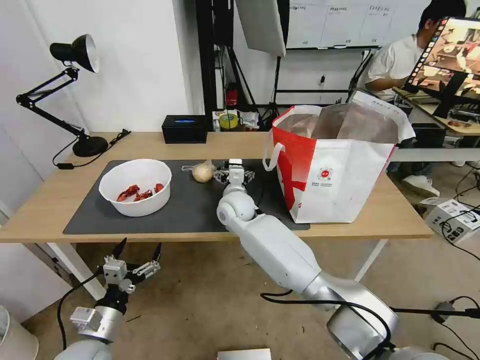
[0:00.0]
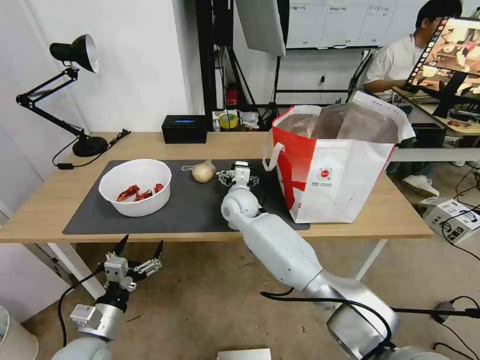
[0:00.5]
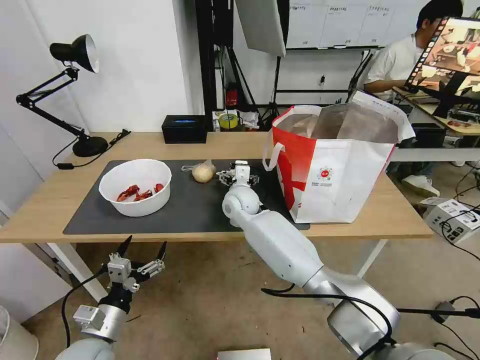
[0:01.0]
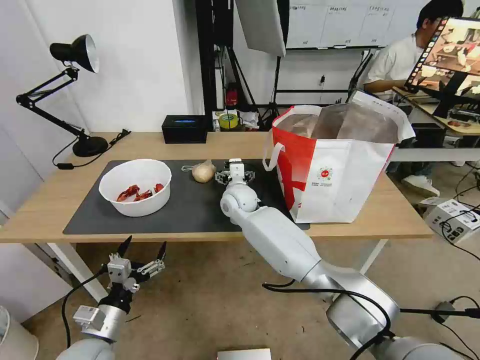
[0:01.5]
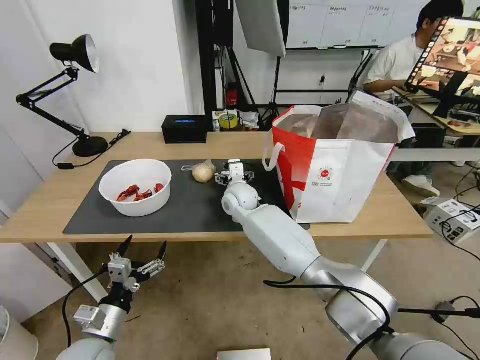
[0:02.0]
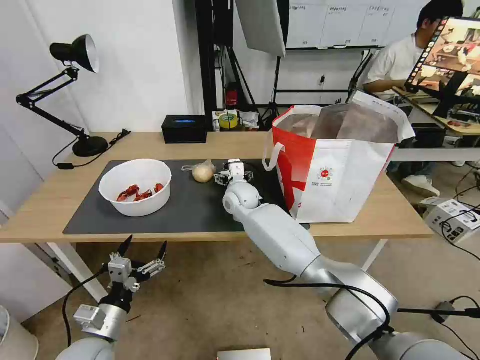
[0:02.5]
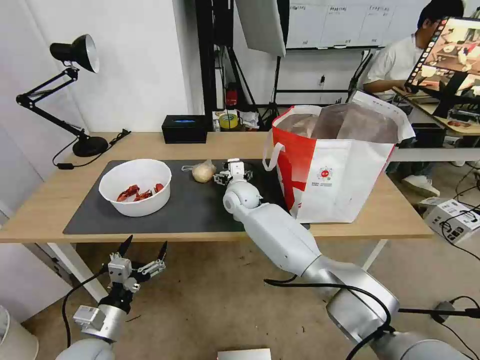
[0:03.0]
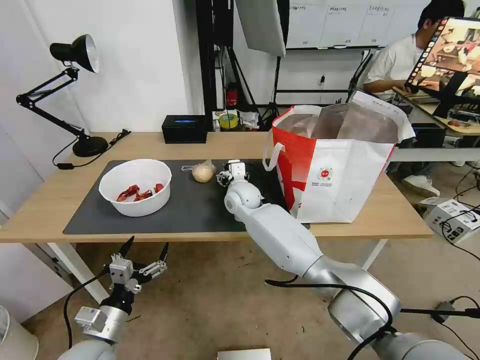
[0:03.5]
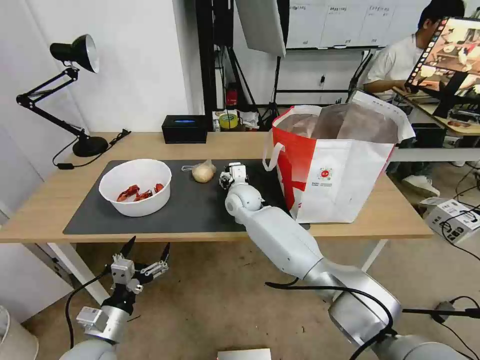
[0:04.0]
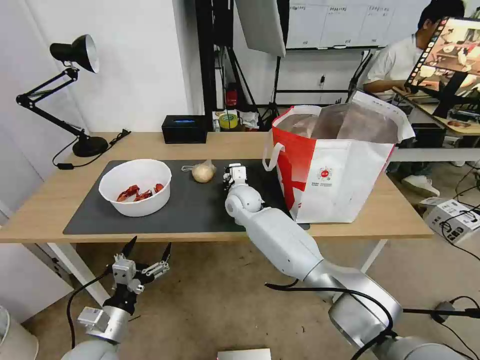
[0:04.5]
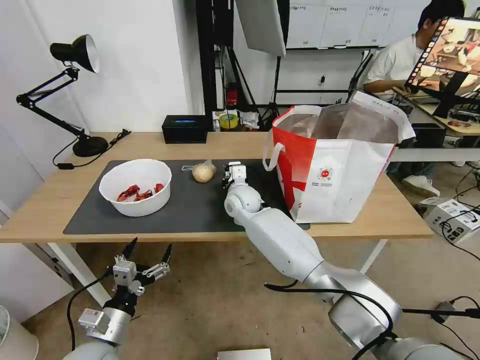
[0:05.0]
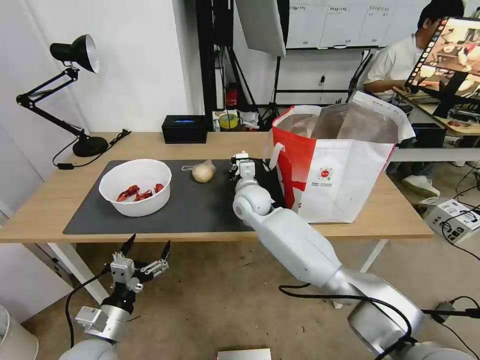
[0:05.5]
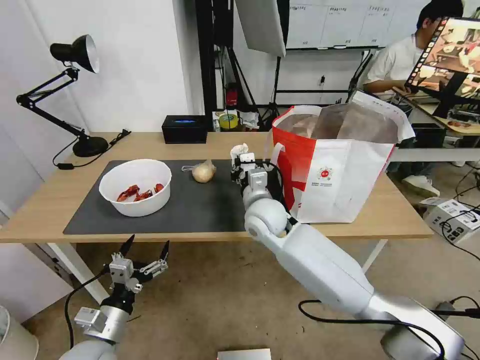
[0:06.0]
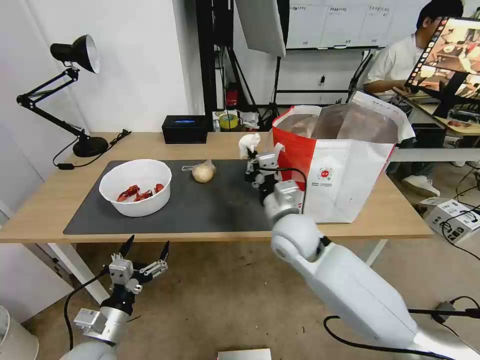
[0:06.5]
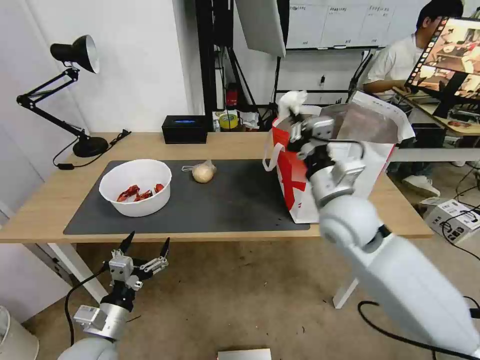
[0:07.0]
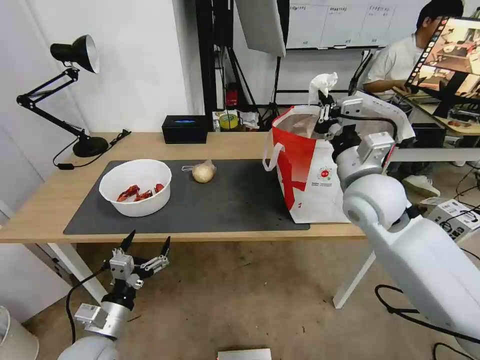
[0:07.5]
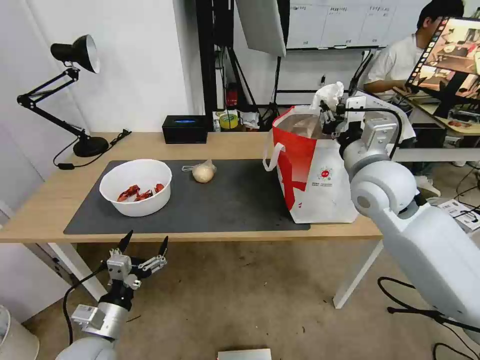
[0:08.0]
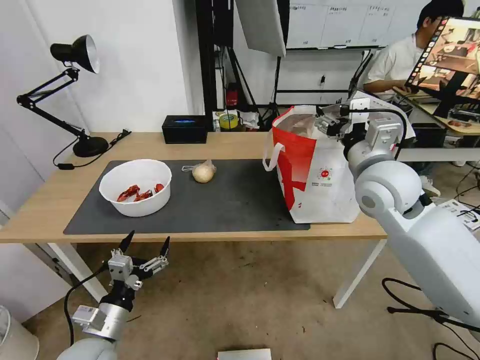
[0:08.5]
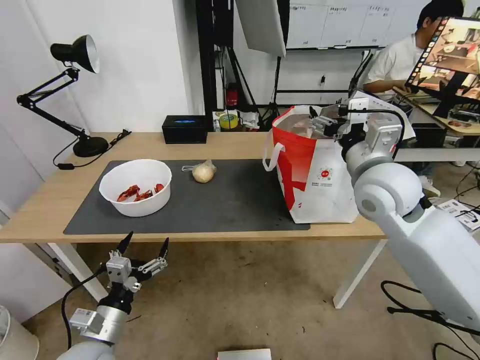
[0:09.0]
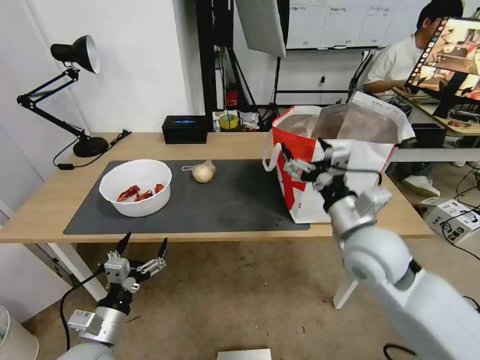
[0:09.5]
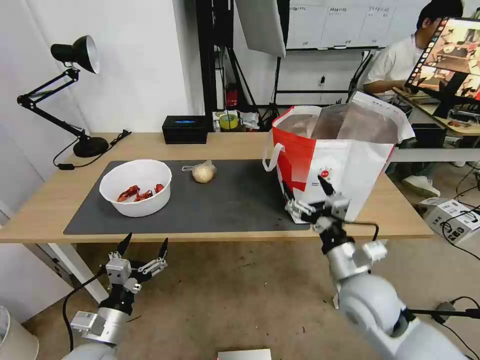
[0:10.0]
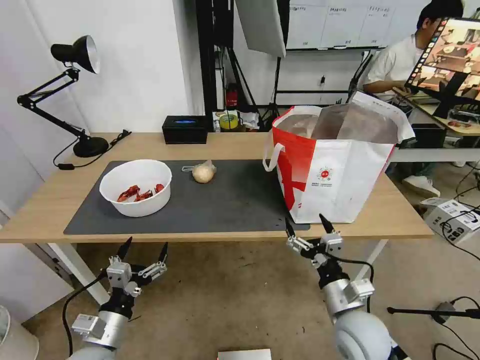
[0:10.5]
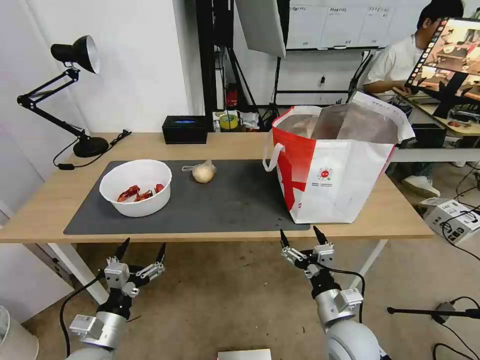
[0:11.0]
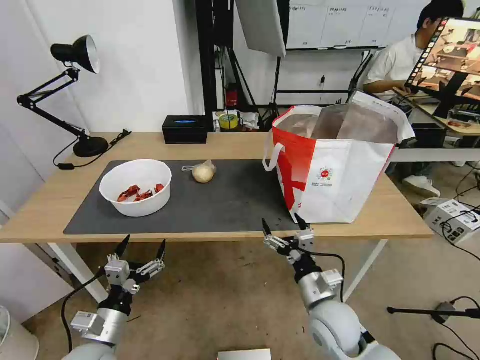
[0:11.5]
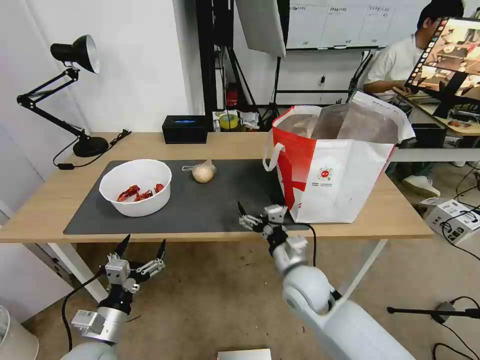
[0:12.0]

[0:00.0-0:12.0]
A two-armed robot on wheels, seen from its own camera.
Task of the whole recording: Pick up the trash from the table and place it into the takeout bag.
0:00.0 to 0:02.0: The grippers make only small movements.
0:02.0 to 0:04.0: The two grippers keep their place.
0:04.0 to 0:06.0: The right gripper is displaced backward by approximately 10 cm, and closes up.
0:06.0 to 0:08.0: The right gripper travels to the right and upward by roughly 25 cm.
0:08.0 to 0:10.0: The right gripper goes about 20 cm downward and backward, and opens its fingers.
0:10.0 to 0:12.0: The right gripper shifts approximately 10 cm to the left and downward.

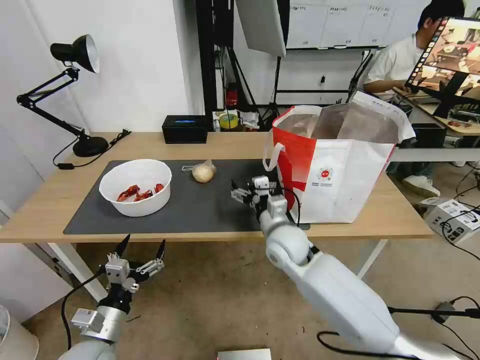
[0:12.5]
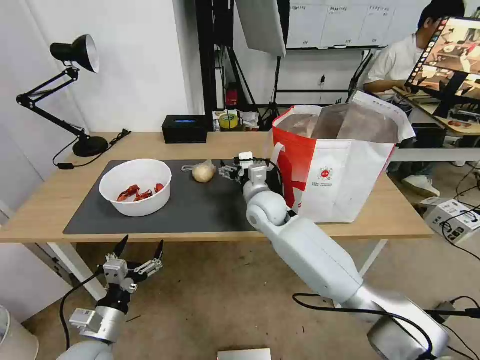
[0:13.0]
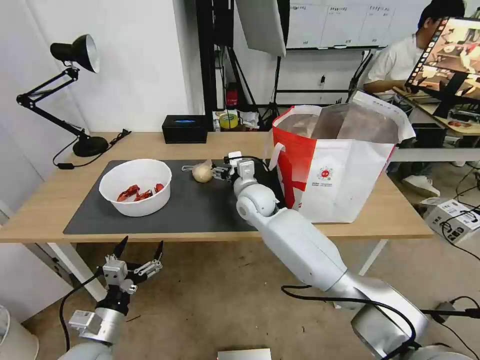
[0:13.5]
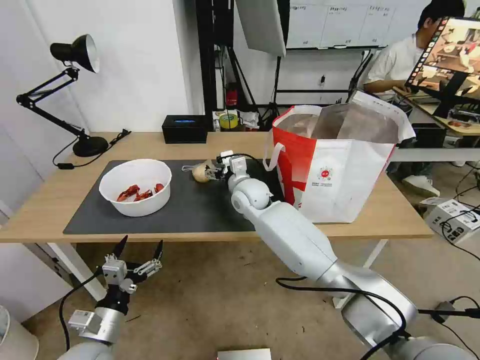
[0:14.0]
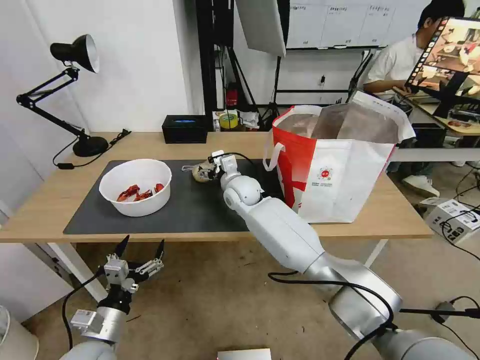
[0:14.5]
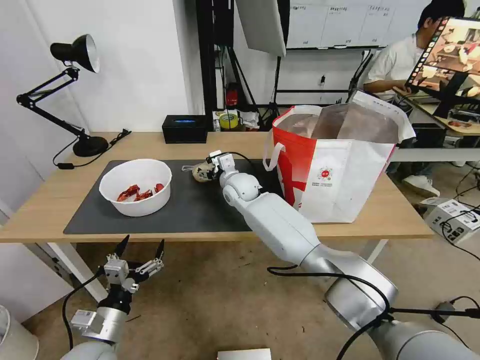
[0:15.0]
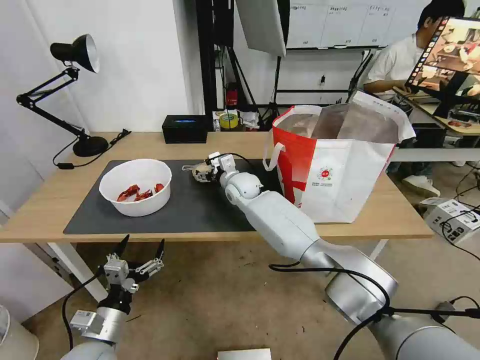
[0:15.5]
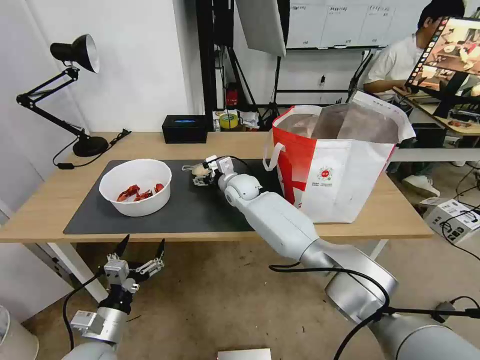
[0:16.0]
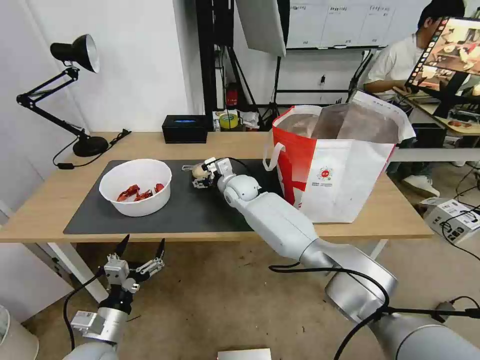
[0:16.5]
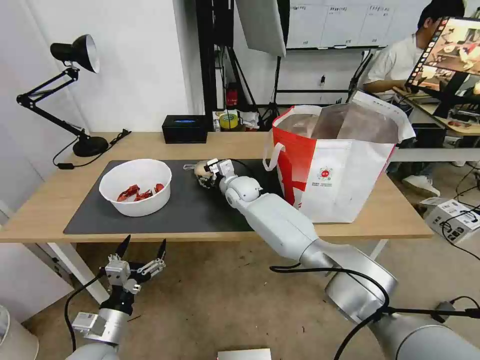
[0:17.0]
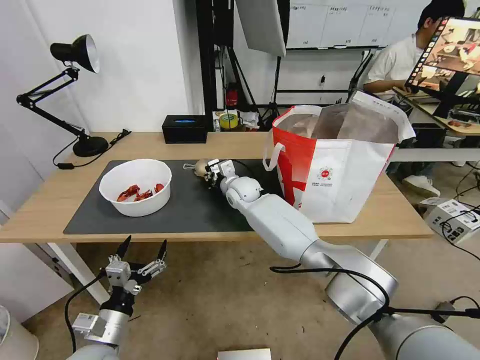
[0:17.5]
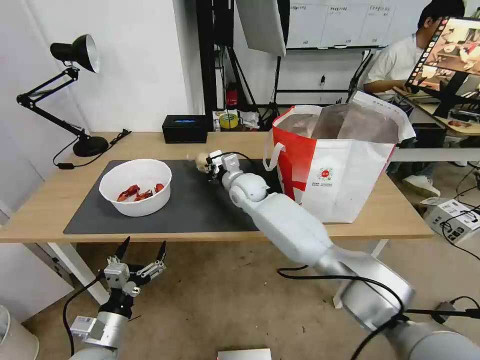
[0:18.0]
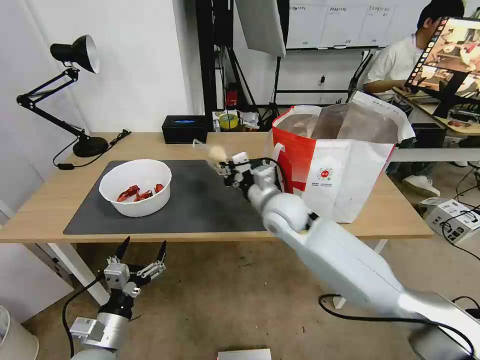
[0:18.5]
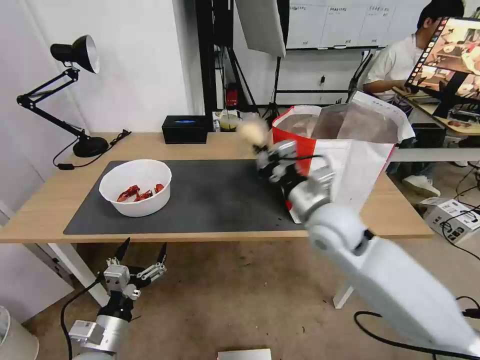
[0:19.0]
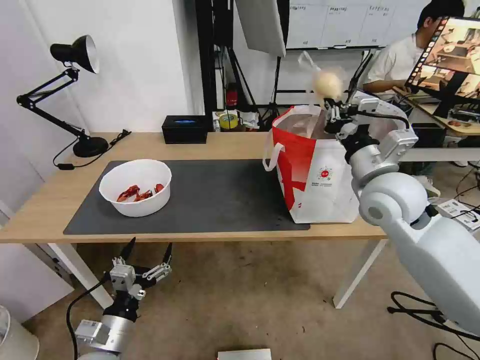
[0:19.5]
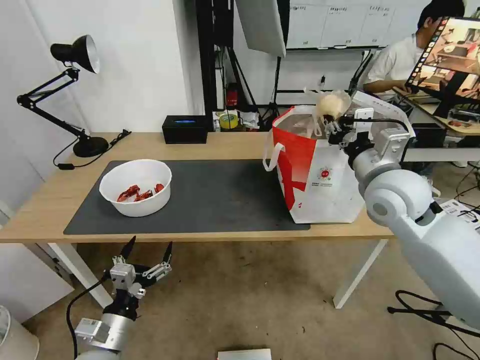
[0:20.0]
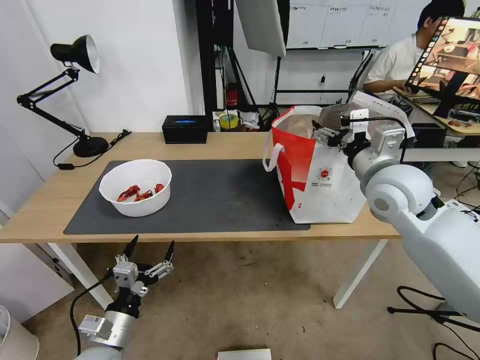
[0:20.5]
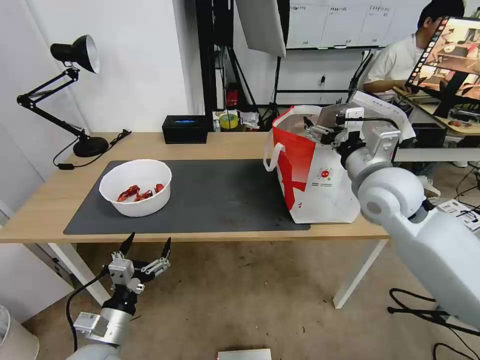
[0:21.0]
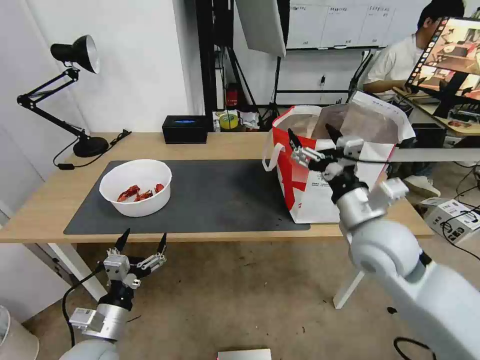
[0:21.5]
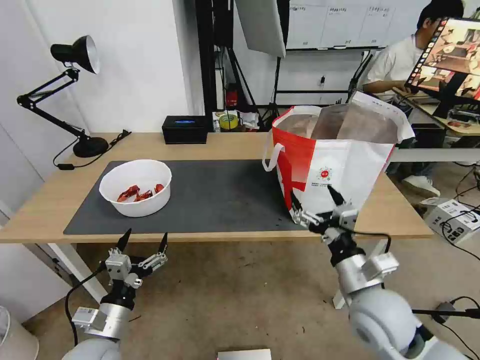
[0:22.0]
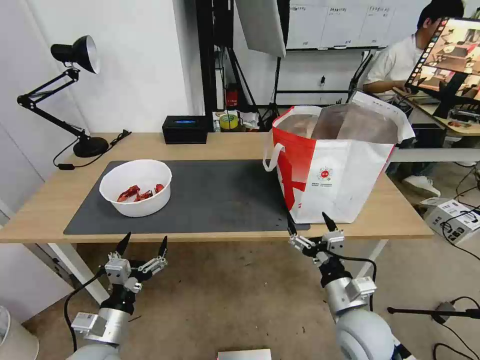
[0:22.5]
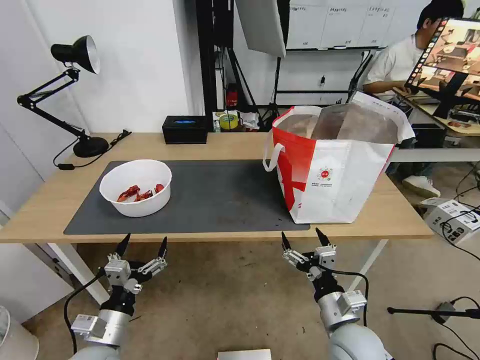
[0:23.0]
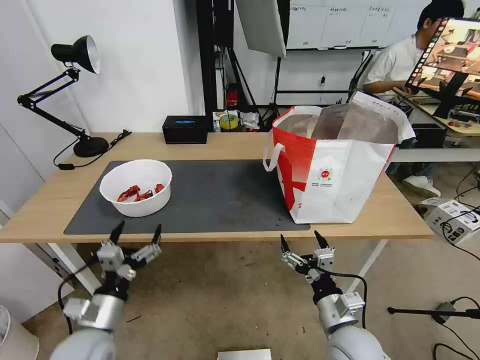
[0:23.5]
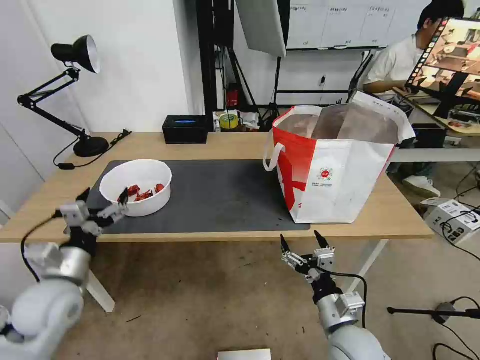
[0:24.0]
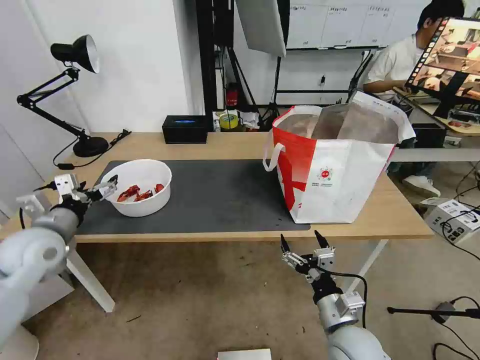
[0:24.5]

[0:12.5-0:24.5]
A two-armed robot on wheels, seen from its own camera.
Task of the whole recording: Pick up the trash from the table and place it into the takeout bag.
0:12.5 to 0:14.5: The right gripper travels forward and to the left by approximately 20 cm.
0:14.5 to 0:16.5: The grippers make only small movements.
0:16.5 to 0:18.5: The right gripper shifts some 20 cm backward, to the right and upward, and closes.
0:18.5 to 0:20.5: The right gripper moves to the right and upward, some 20 cm, and opens up.
0:20.5 to 0:22.5: The right gripper shifts about 30 cm downward and backward.
0:22.5 to 0:24.5: The left gripper heads forward, upward and to the left, covering approximately 25 cm.

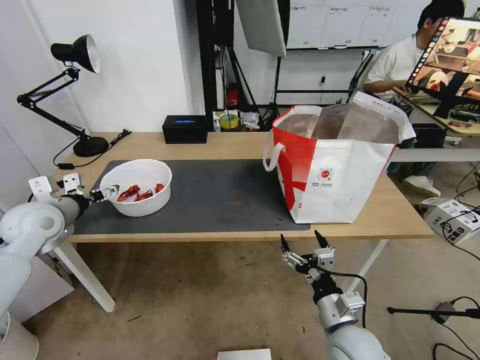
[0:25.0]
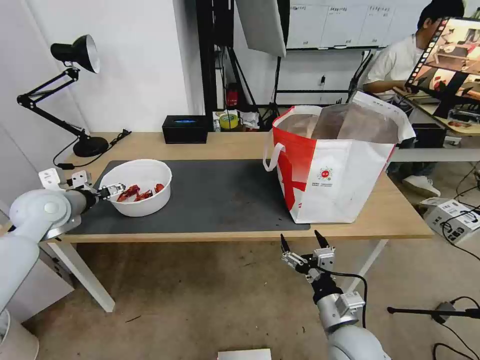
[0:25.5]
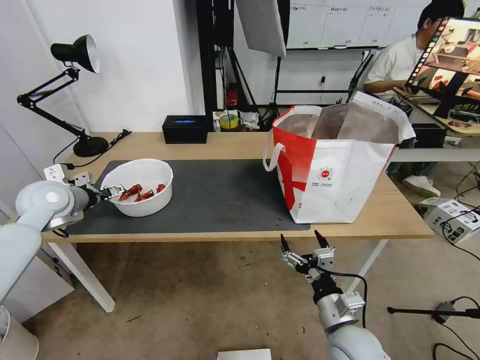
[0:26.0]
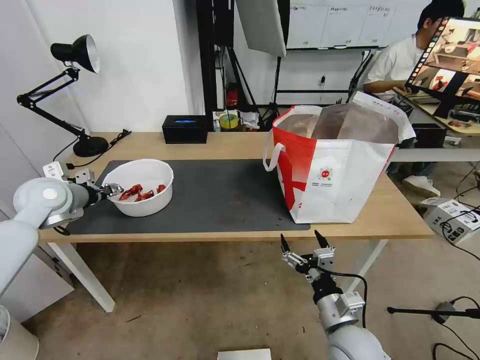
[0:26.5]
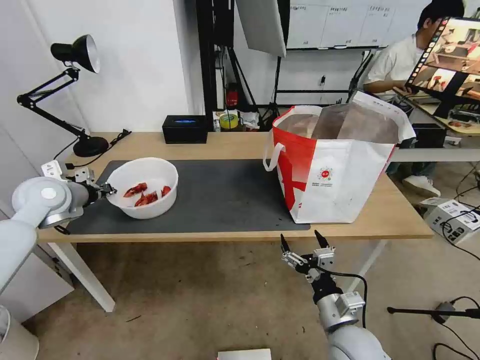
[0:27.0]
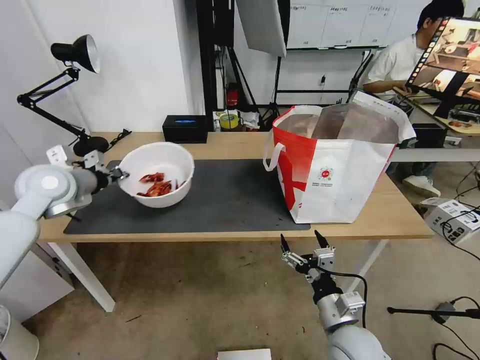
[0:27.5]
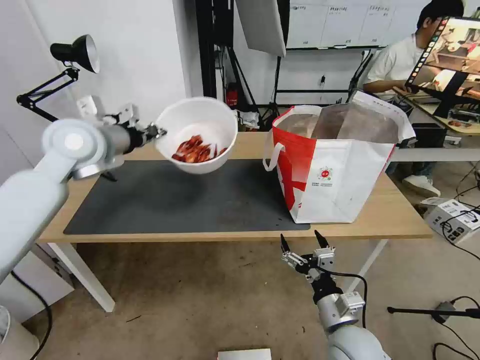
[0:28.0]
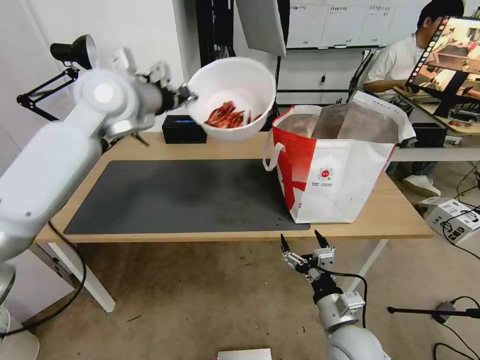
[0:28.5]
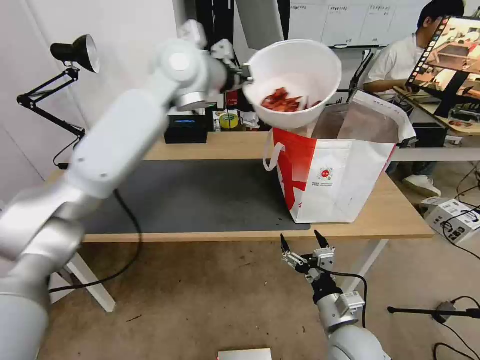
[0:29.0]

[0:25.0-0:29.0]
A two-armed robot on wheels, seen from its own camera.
Task of the whole recording: Pick up the trash from the table and place it into the takeout bag.
0:25.0 to 0:27.0: The left gripper shifts by approximately 5 cm, and closes up.
0:27.0 to 0:29.0: The left gripper is displaced to the right and upward by approximately 40 cm.
